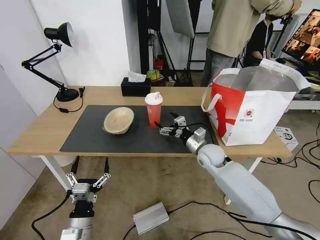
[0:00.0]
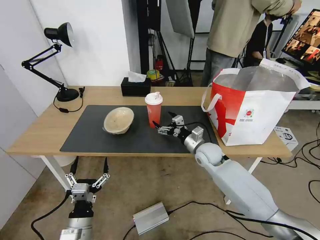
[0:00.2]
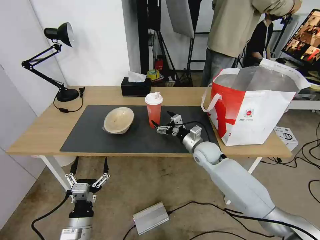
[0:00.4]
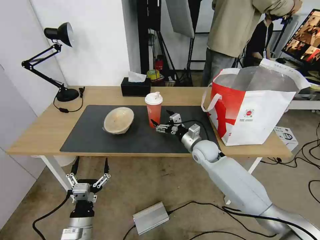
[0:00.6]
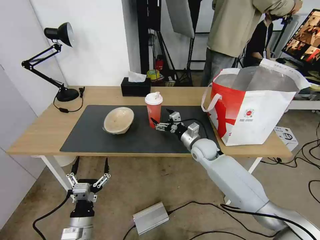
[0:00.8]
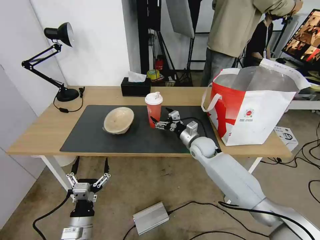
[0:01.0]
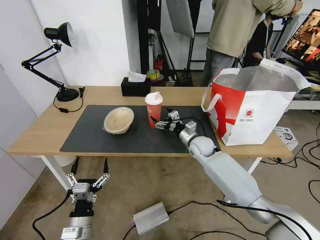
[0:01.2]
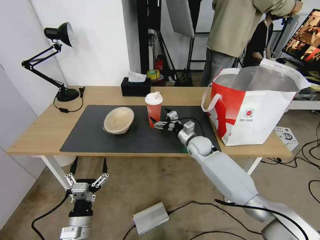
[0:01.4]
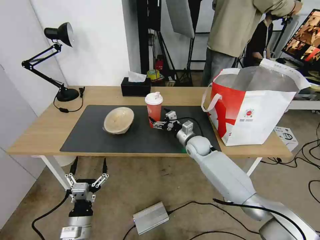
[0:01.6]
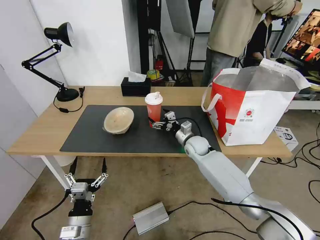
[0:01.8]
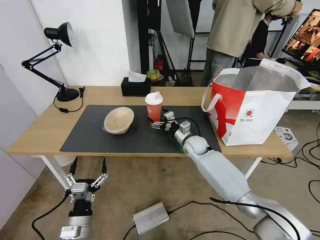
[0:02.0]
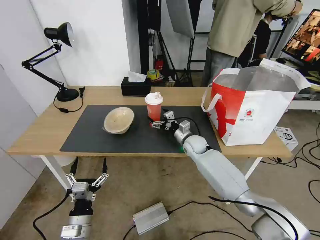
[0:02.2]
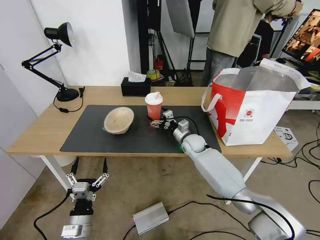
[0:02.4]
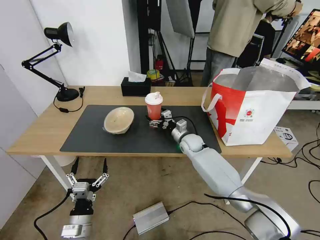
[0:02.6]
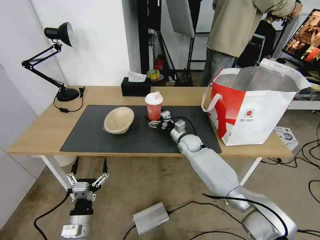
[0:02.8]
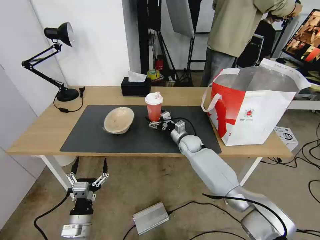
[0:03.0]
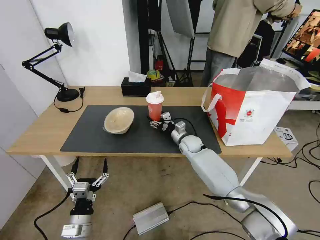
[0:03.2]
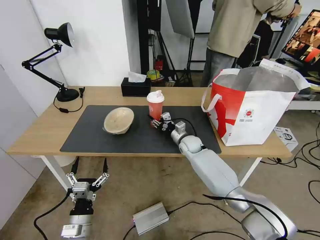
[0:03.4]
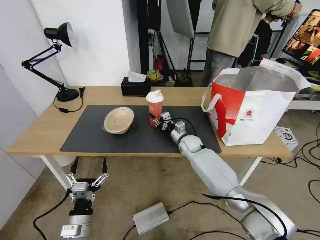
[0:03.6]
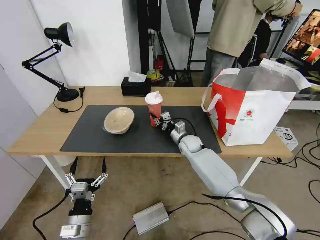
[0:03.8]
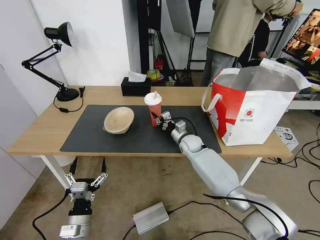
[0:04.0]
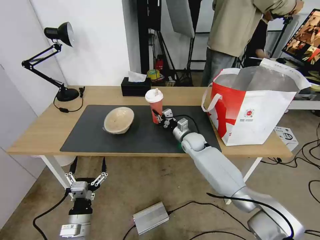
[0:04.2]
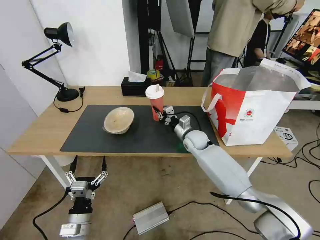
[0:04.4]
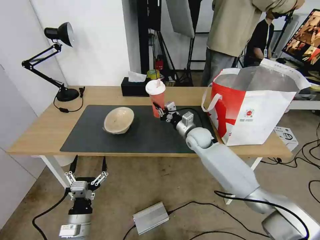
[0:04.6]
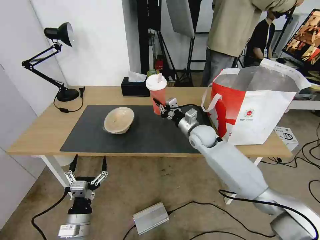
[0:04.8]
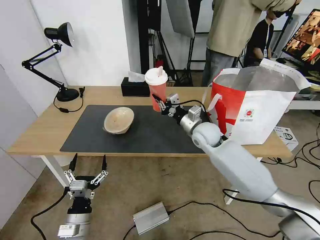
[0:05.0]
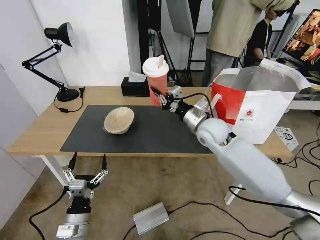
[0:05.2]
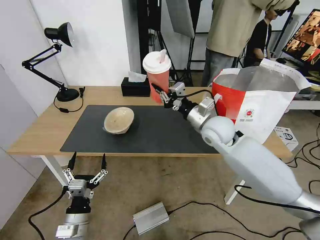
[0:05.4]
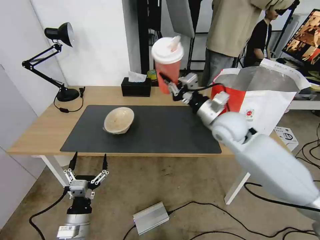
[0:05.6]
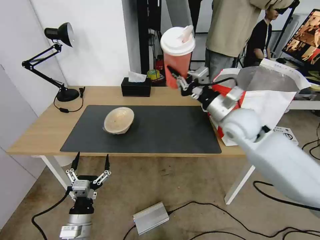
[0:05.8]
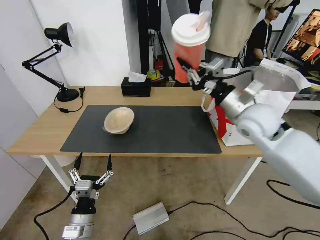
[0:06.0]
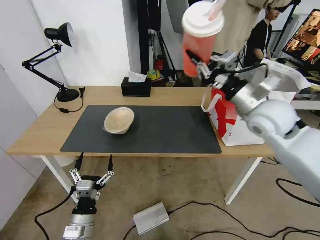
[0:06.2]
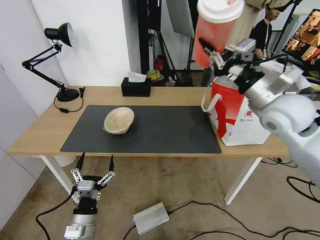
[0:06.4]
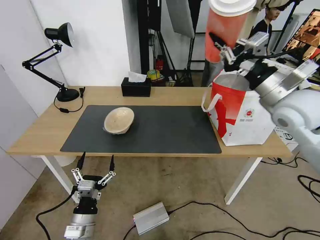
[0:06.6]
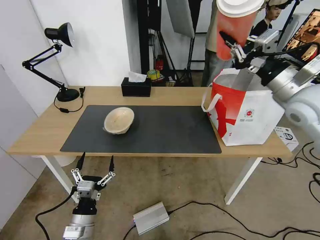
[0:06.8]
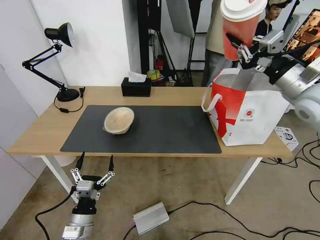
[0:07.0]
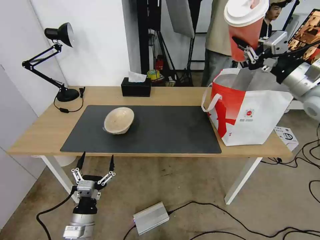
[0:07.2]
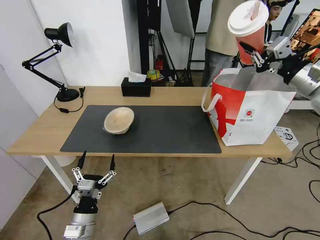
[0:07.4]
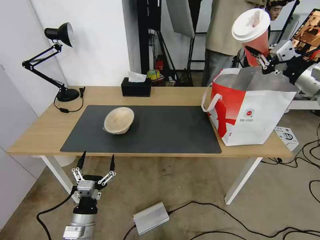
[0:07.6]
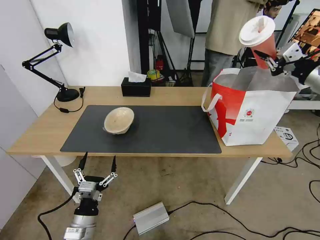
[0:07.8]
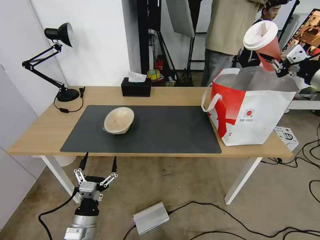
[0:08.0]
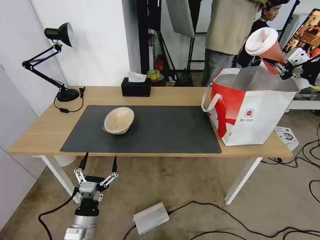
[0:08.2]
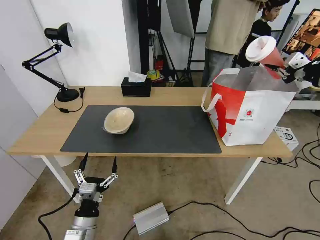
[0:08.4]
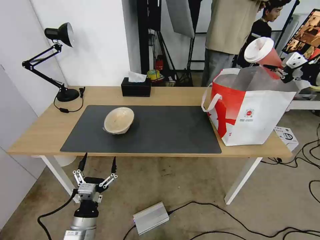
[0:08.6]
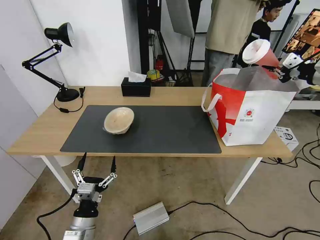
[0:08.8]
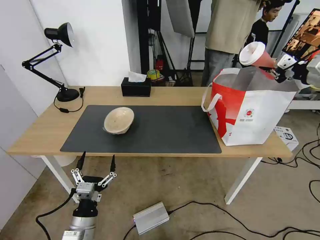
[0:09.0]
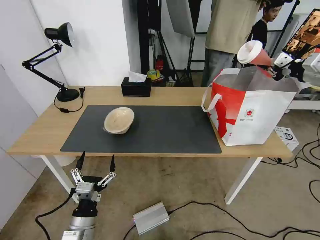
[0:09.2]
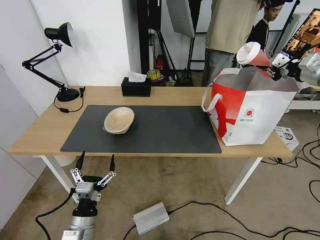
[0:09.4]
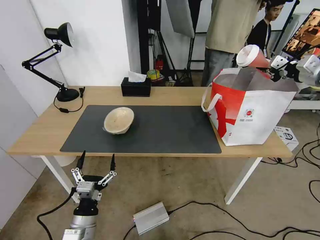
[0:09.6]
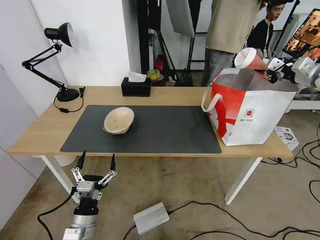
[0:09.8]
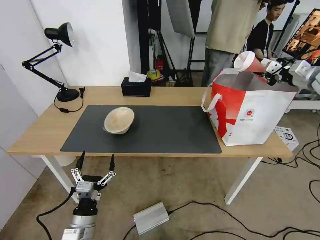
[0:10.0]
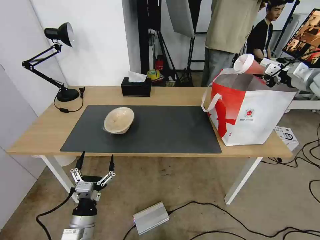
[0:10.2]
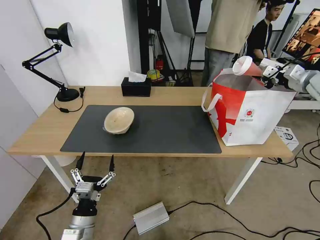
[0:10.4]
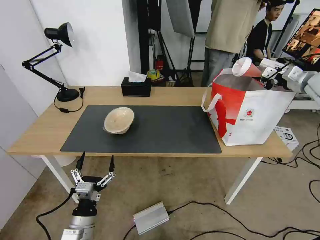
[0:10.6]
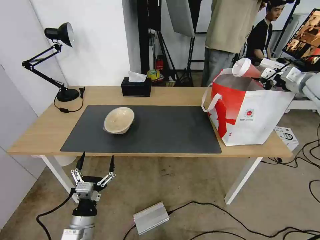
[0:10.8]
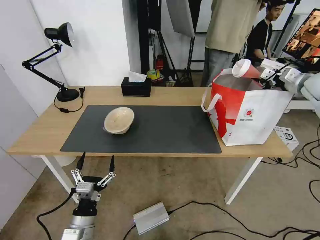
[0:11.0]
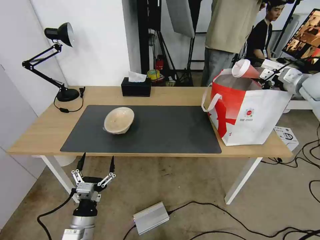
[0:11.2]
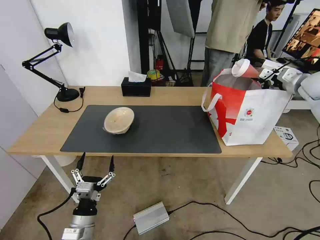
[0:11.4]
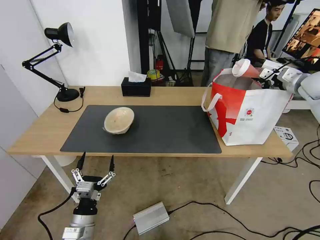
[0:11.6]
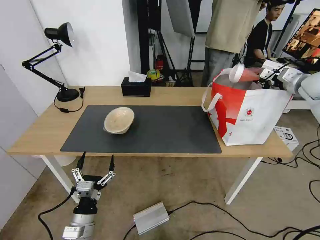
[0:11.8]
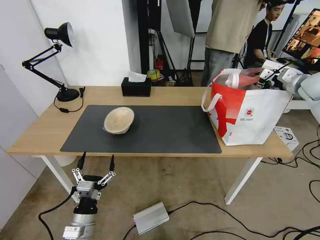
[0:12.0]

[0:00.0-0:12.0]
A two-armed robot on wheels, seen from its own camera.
Task of the whole recording: Pick up the trash from the table and place it into the takeout bag.
0:00.0 to 0:01.6: The right gripper is displaced forward by roughly 5 cm.
0:01.6 to 0:03.0: The grippers make only small movements.
0:03.0 to 0:04.4: The right gripper closes.
0:04.4 to 0:06.0: The right gripper moves upward, backward and to the right, approximately 25 cm.
0:06.0 to 0:07.6: The right gripper heads to the right and upward, covering about 20 cm.
0:07.6 to 0:09.0: The right gripper shifts some 10 cm to the right and forward.
0:09.0 to 0:10.4: The right gripper heads forward, covering roughly 5 cm.
0:10.4 to 0:12.0: The right gripper opens up.

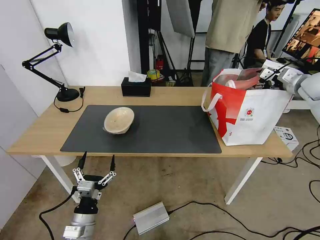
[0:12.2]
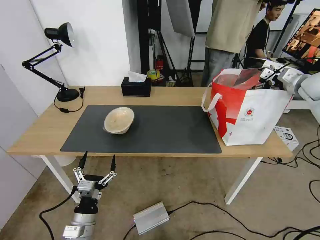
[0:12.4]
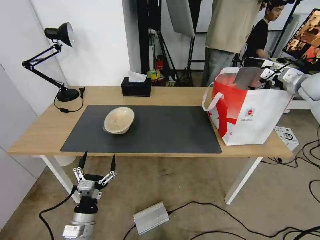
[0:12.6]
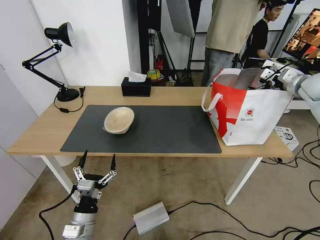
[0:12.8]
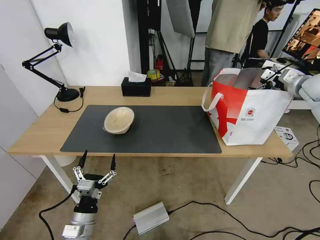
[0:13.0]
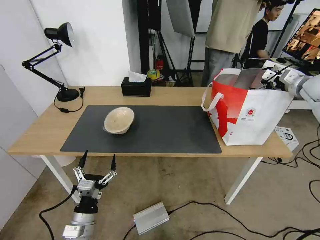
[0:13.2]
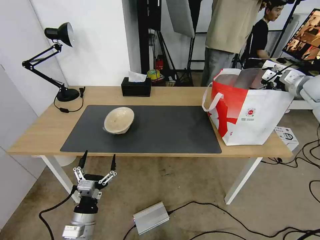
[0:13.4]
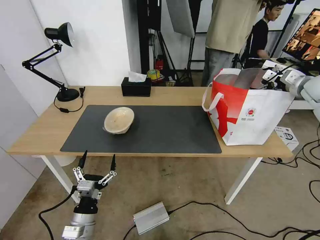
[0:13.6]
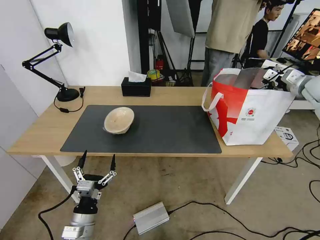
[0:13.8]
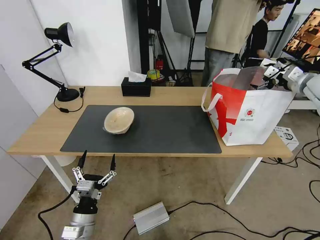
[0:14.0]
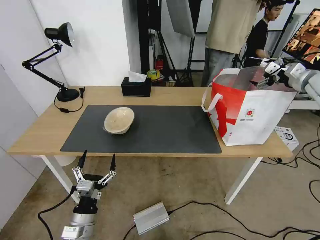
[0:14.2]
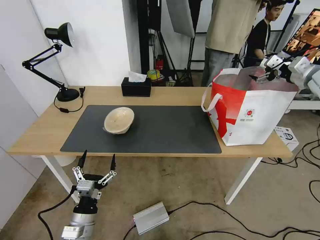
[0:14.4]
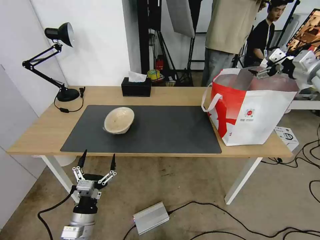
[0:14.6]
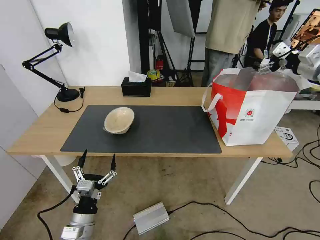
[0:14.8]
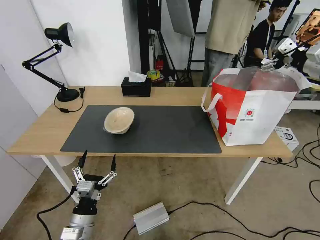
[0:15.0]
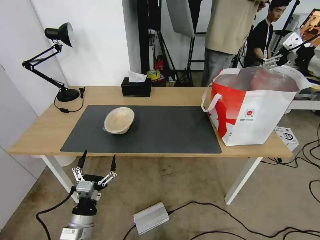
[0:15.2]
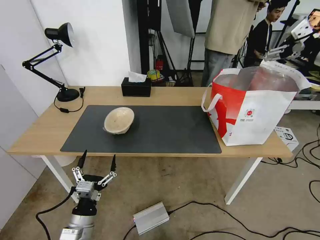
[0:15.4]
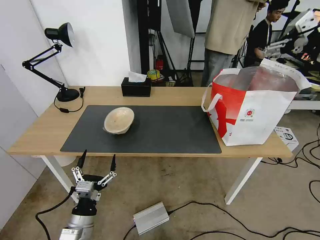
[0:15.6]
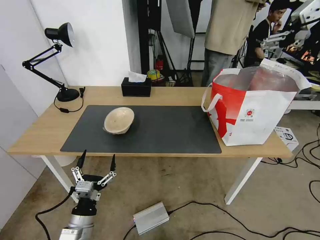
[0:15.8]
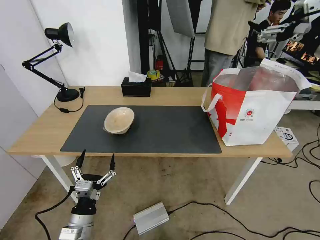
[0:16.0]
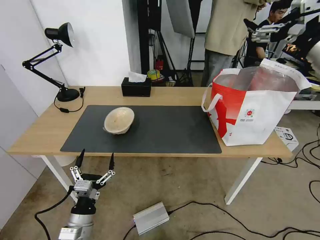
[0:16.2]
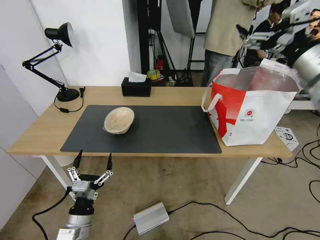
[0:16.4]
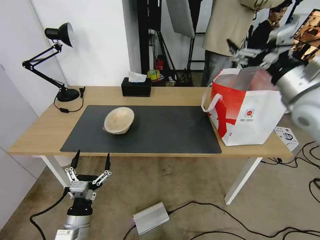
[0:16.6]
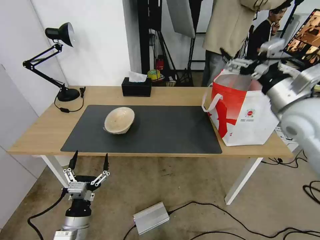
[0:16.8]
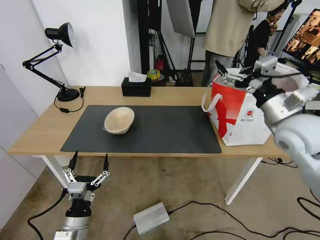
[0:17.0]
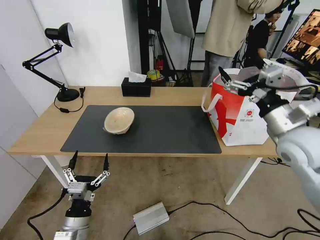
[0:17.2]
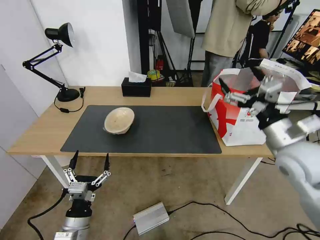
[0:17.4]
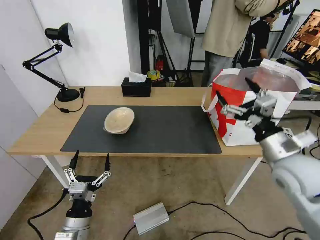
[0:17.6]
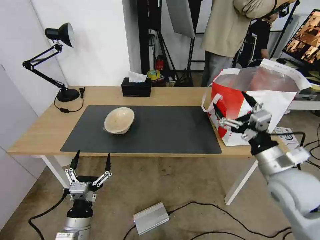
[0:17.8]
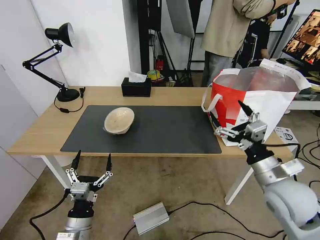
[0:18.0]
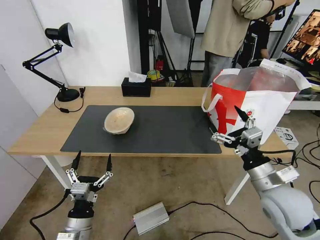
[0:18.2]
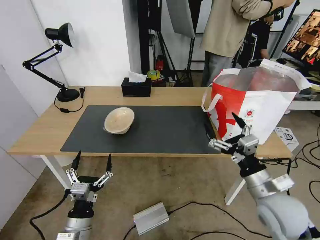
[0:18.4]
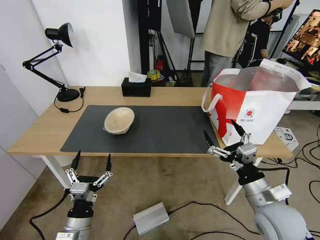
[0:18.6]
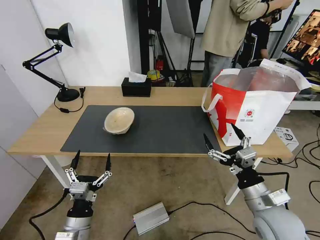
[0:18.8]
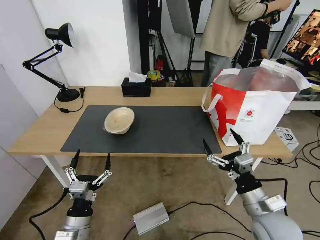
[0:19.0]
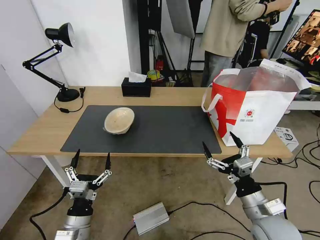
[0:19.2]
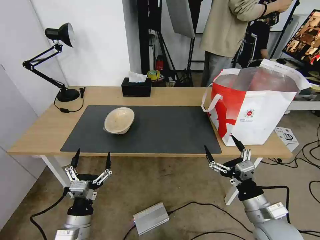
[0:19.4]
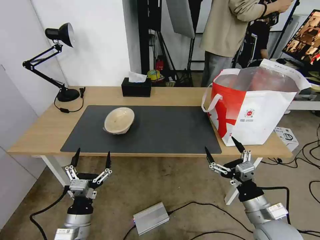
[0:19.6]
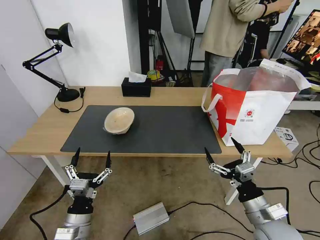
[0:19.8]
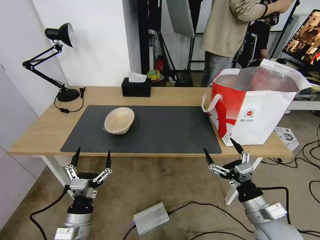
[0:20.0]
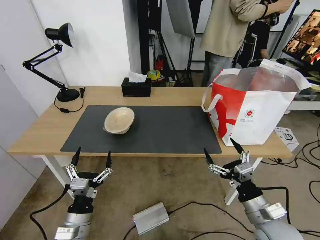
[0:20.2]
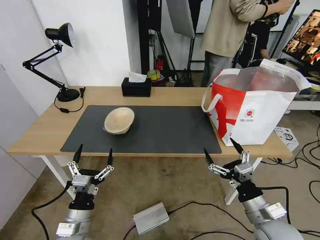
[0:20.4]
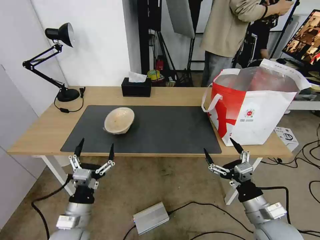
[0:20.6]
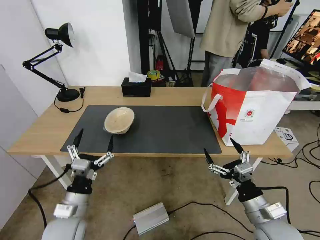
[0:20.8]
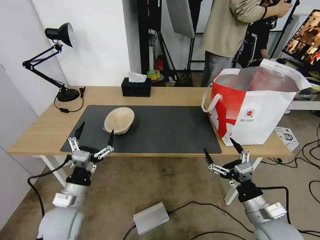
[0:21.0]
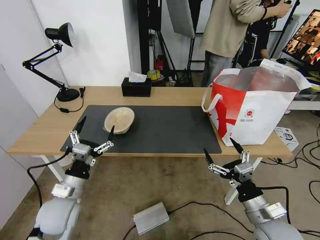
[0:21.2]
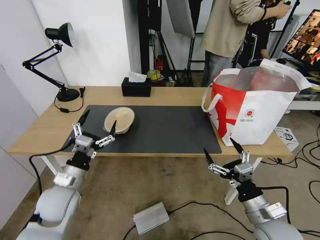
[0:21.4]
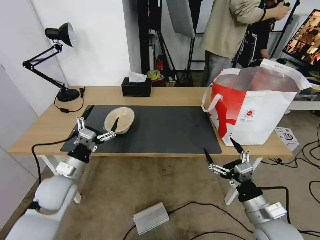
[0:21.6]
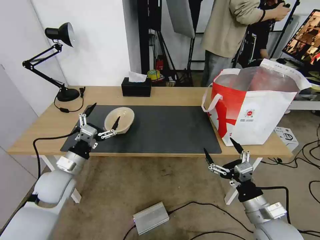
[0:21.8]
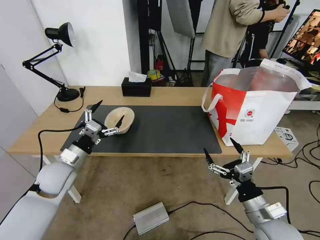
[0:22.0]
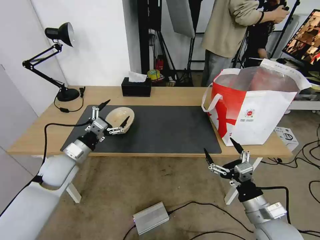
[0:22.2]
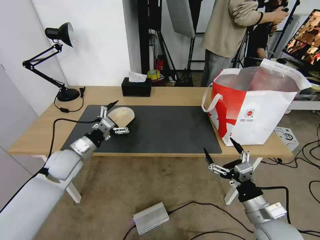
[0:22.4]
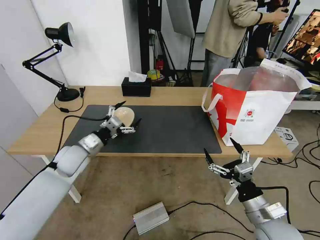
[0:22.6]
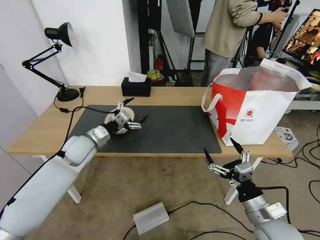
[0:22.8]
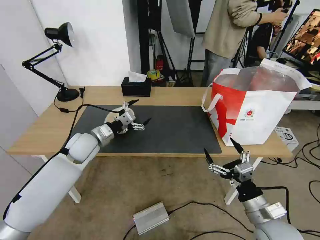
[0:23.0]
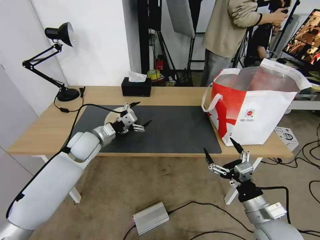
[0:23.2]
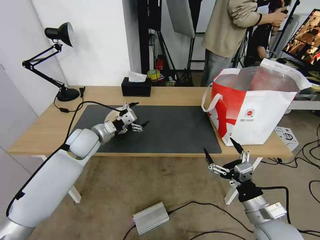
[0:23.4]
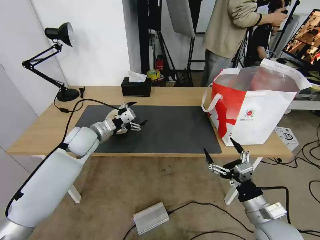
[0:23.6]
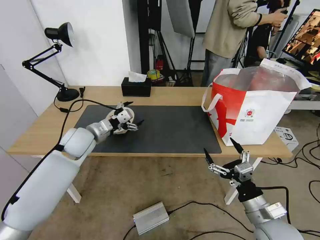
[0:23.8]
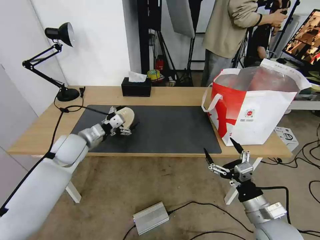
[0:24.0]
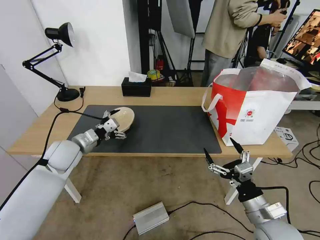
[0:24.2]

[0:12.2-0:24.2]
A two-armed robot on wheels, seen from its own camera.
Task of the whole recording: Pick up the trash from the table and place it into the takeout bag.
0:12.2 to 0:13.8: The right gripper opens up.
0:13.8 to 0:15.2: The right gripper is displaced upward, backward and to the left by some 15 cm.
0:15.2 to 0:16.6: The right gripper heads to the left and backward, covering roughly 15 cm.
0:16.6 to 0:18.2: The right gripper travels downward and backward by approximately 25 cm.
0:18.2 to 0:19.8: The right gripper is displaced downward and backward by roughly 10 cm.
0:19.8 to 0:21.2: The left gripper goes roughly 10 cm forward and upward.
0:21.2 to 0:22.6: The left gripper is displaced forward by about 15 cm.
